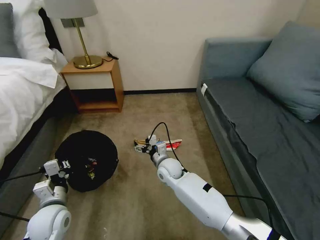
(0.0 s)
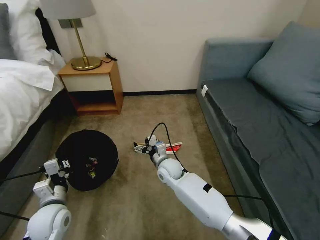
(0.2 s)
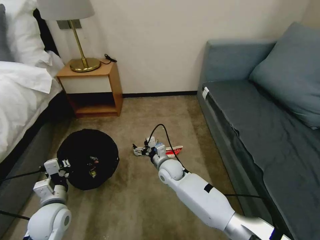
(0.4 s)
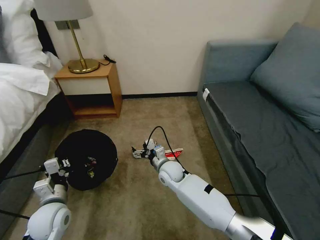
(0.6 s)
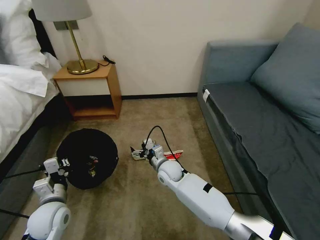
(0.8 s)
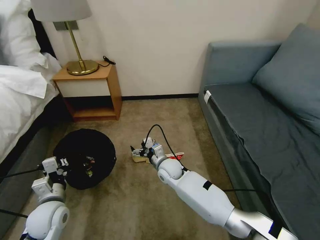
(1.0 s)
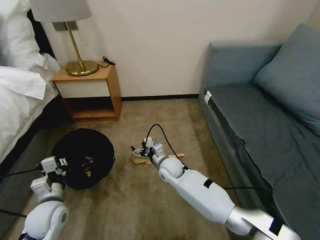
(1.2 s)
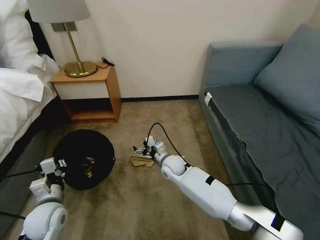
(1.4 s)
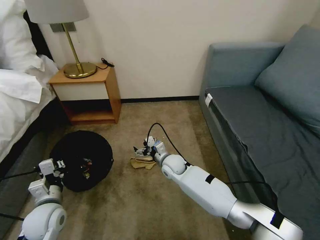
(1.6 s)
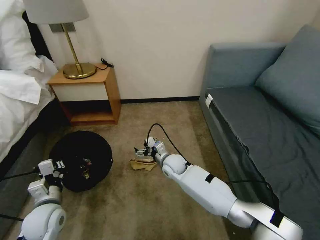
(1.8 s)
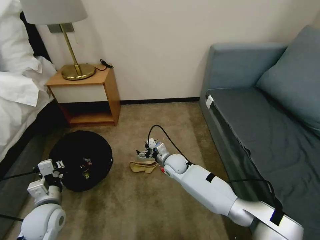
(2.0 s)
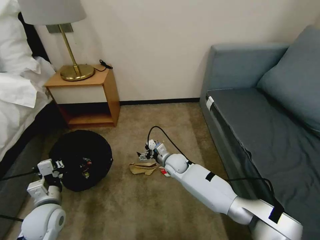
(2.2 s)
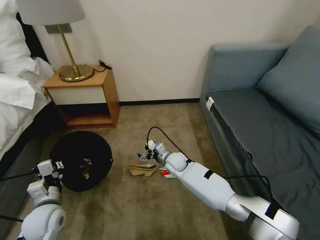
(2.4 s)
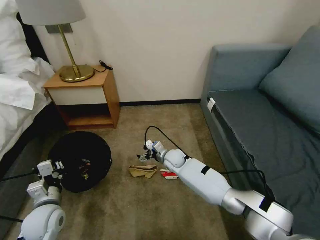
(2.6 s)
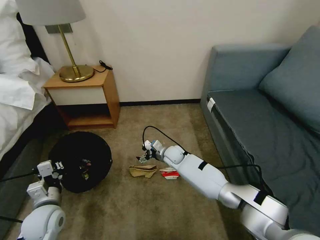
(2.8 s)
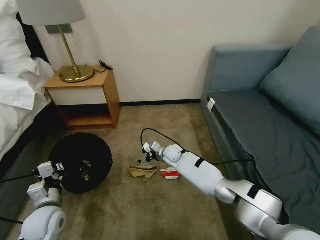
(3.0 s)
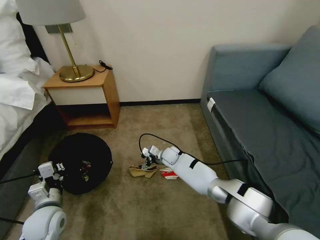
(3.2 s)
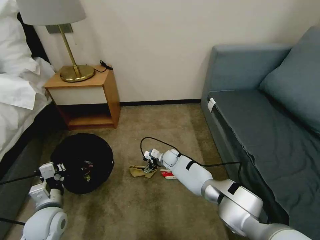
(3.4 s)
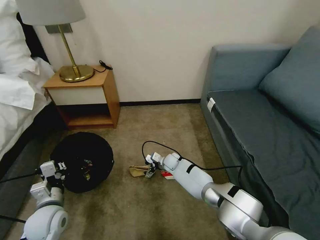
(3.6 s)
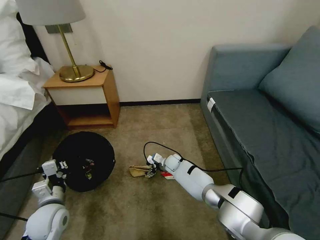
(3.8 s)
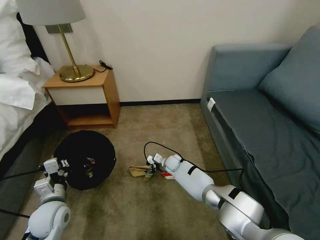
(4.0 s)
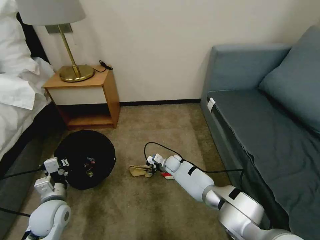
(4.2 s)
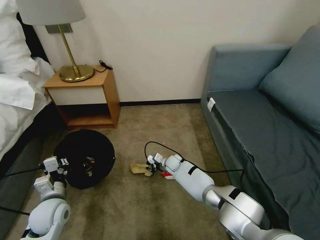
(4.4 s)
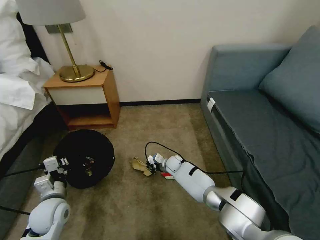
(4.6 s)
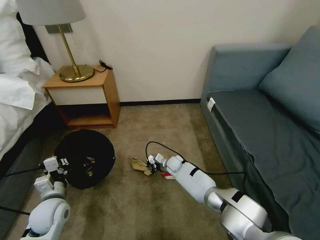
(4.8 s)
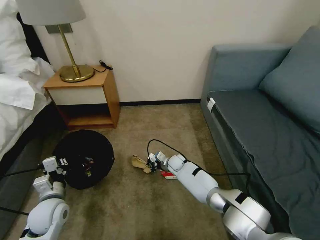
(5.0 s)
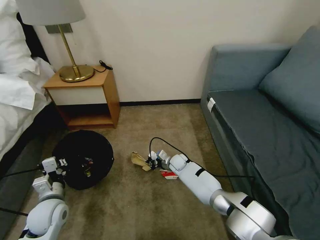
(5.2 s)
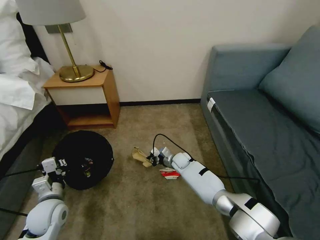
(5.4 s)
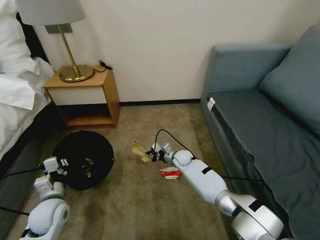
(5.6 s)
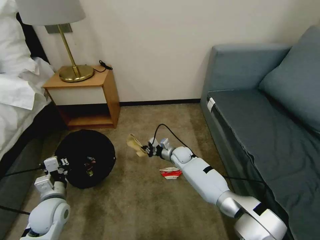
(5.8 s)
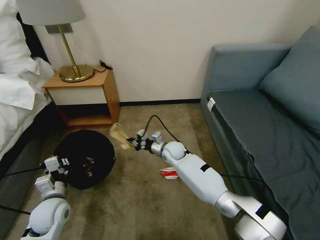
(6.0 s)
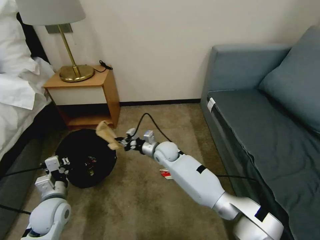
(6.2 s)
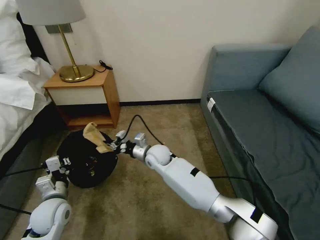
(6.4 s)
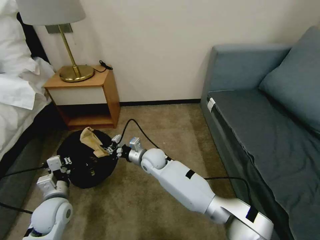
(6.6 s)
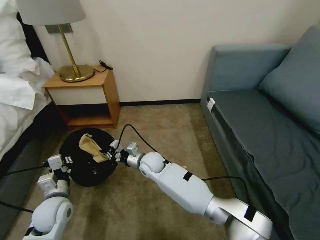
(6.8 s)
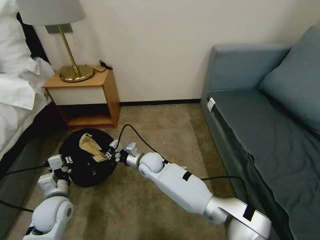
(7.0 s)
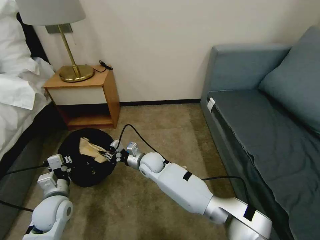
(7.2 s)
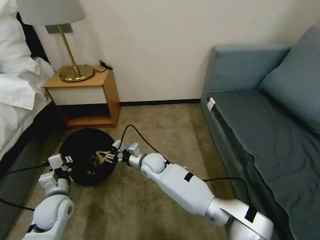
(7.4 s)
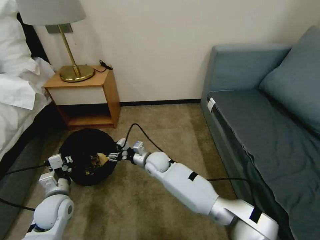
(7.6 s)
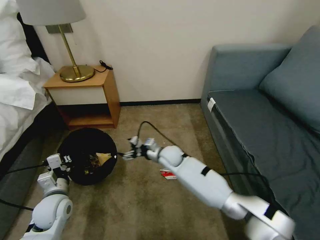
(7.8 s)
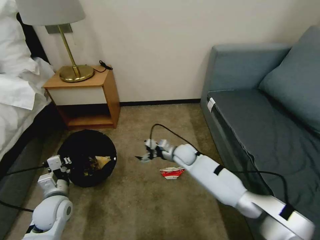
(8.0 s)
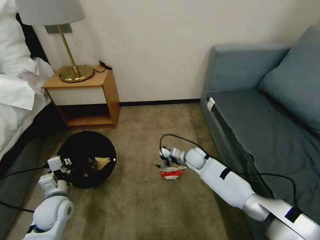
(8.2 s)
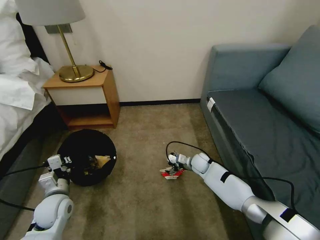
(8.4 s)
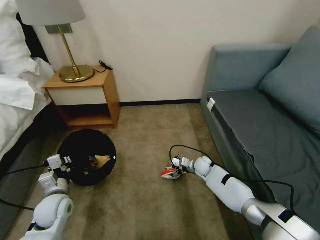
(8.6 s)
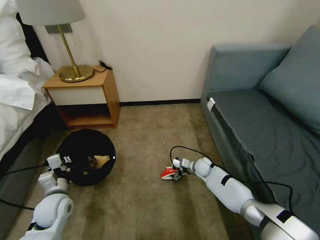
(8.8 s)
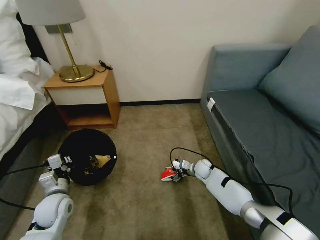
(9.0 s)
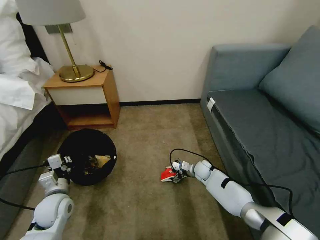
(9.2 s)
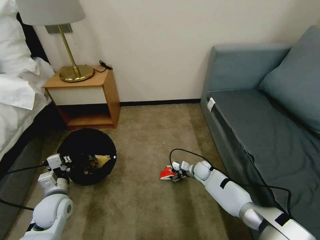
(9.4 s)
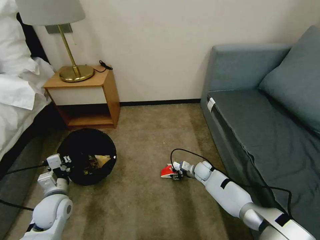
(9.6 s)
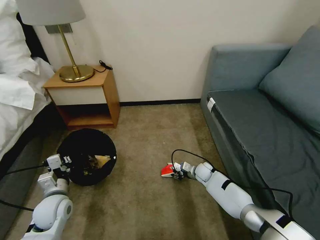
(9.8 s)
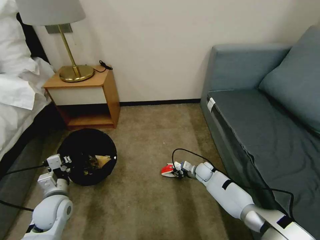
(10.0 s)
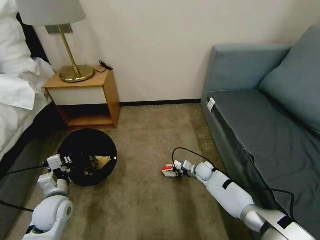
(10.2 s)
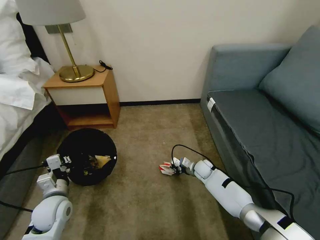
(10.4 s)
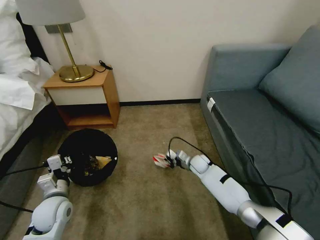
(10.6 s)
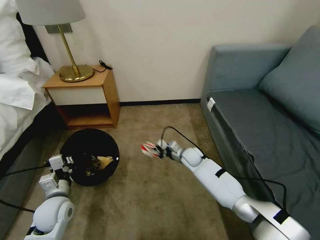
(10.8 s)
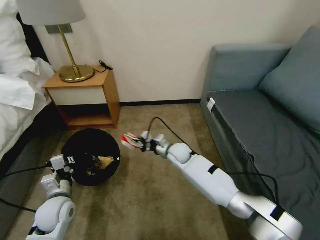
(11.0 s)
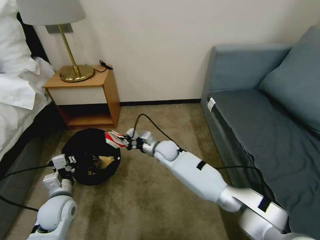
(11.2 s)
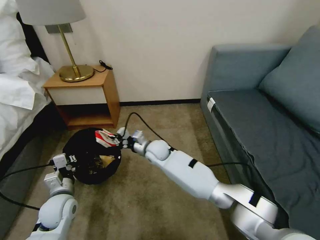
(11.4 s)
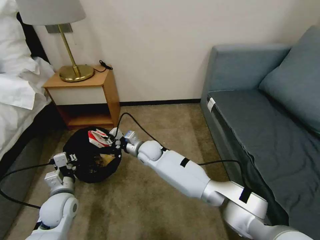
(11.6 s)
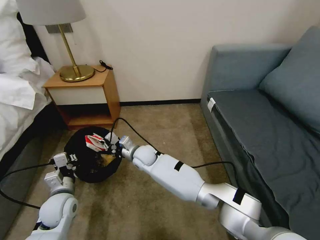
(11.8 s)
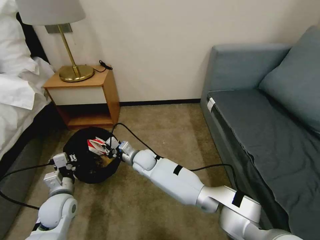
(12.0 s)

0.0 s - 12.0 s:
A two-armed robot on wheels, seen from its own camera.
Task of the whole recording: Pick up the trash bin, then pick up the garbage on the floor and place it into the trash bin.
1.6 s - 3.0 s: The right gripper shifts approximately 5 cm forward.
3.0 s - 4.4 s: The right gripper shifts about 10 cm downward, and closes its fingers.
4.4 s - 6.0 s: The right gripper moves upward, approximately 10 cm.
6.0 s - 7.6 s: The right gripper travels to the left and backward by approximately 10 cm, and opens its fingers.
7.6 s - 9.0 s: The right gripper is displaced to the right and downward by about 25 cm.
9.0 s - 10.4 s: The right gripper closes.
10.4 s - 12.0 s: The right gripper heads to the left and upward, covering about 30 cm.

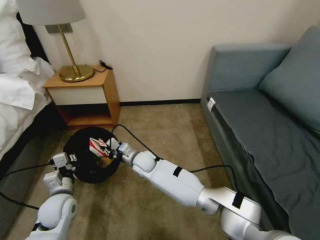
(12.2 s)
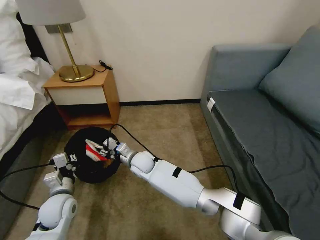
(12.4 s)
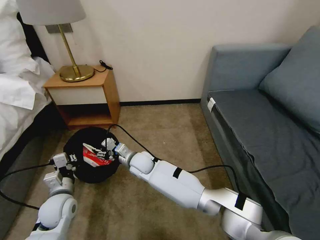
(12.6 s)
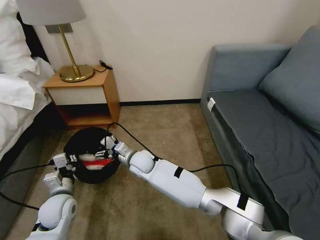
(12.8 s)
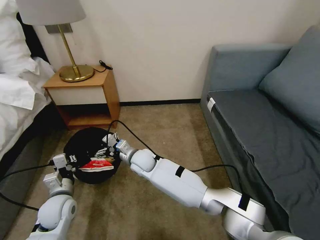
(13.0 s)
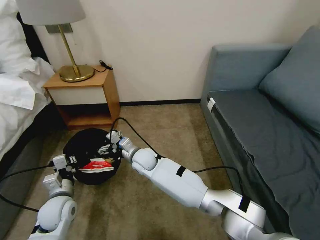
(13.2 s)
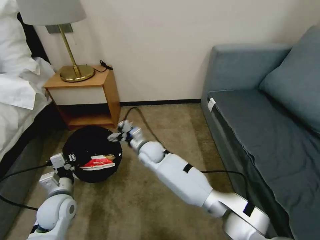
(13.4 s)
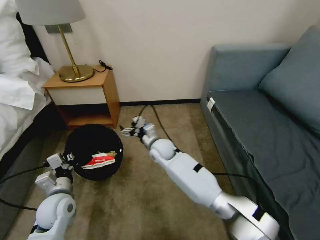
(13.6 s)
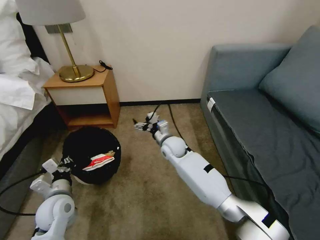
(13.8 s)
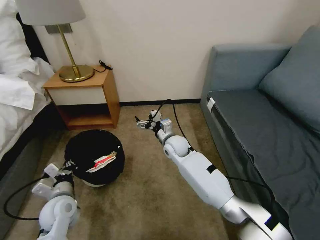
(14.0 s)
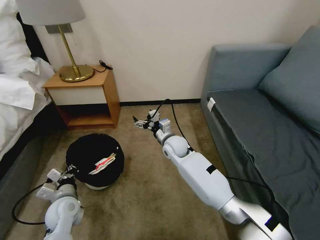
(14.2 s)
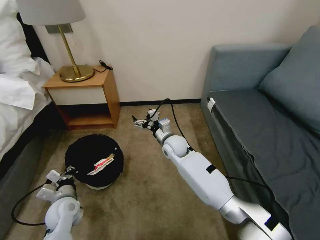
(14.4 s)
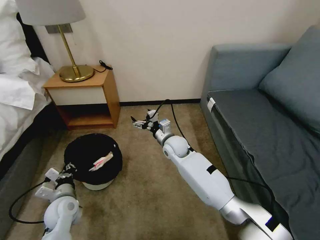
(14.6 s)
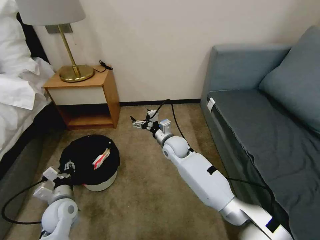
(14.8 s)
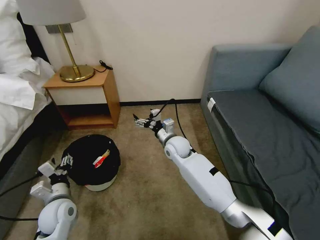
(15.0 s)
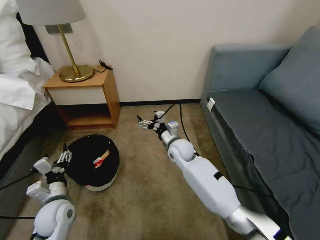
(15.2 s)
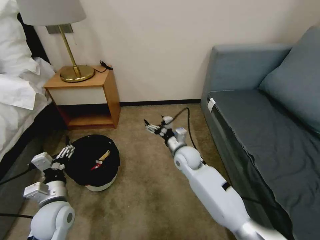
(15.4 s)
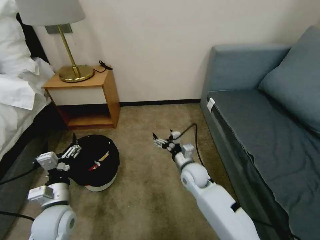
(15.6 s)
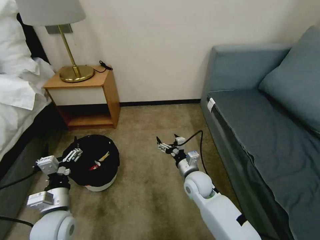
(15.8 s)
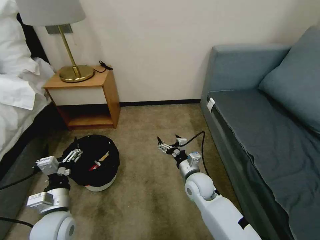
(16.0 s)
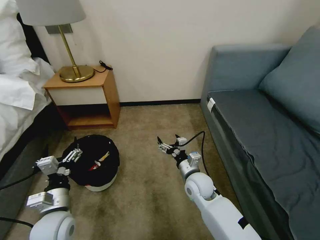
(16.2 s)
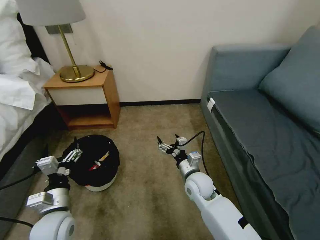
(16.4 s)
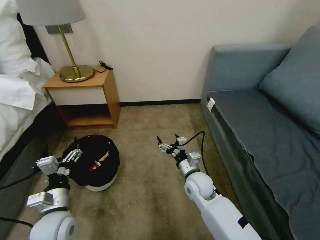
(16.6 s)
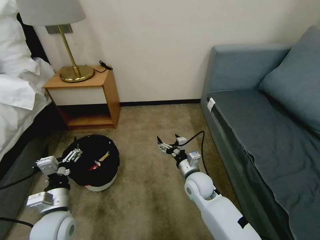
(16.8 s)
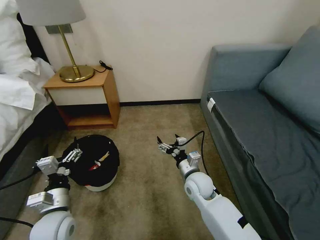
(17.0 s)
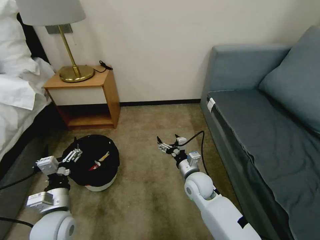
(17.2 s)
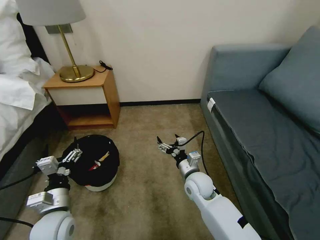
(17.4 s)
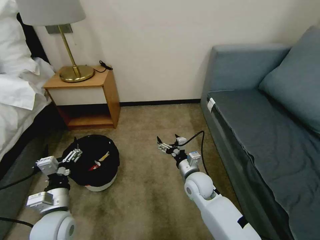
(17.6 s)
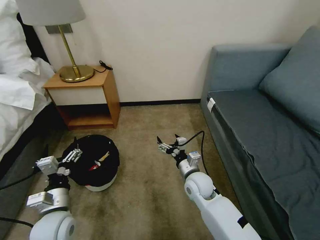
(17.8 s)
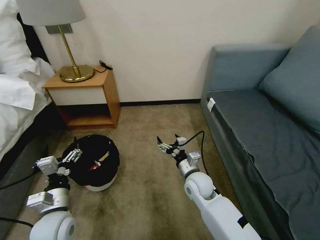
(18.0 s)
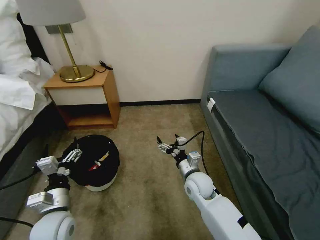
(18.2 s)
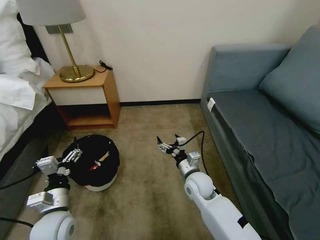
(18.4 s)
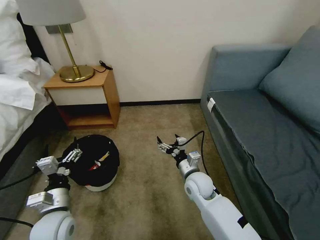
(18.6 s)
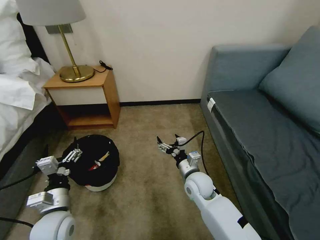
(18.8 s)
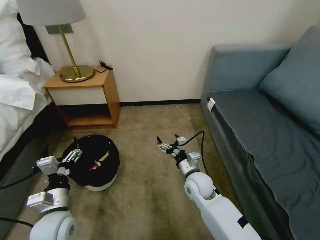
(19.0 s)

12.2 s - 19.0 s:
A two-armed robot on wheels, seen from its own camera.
Task of the whole recording: Pick up the trash bin, then pick up the garbage on the floor and place it into the trash bin.
12.2 s - 13.6 s: The right gripper heads to the right, covering approximately 5 cm, and opens.
13.6 s - 15.0 s: The left gripper opens its fingers. Meanwhile the right gripper is displaced to the right by approximately 5 cm.
15.0 s - 16.2 s: The right gripper is displaced backward, to the right and downward by roughly 15 cm; the left gripper ends up roughly 5 cm from where it was.
16.2 s - 19.0 s: The two grippers keep their place.

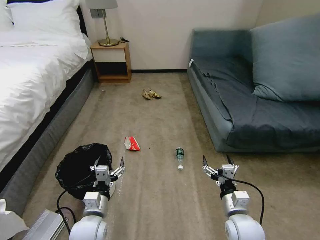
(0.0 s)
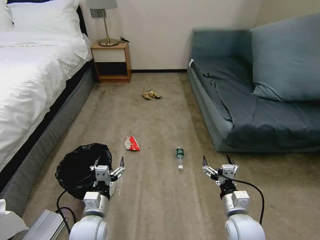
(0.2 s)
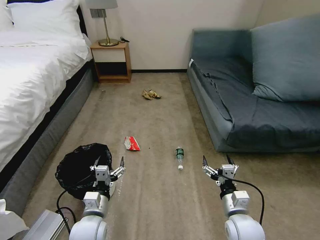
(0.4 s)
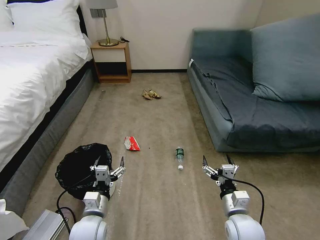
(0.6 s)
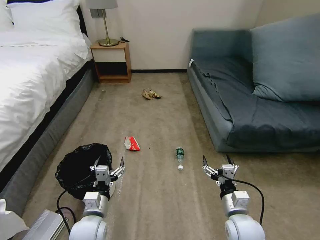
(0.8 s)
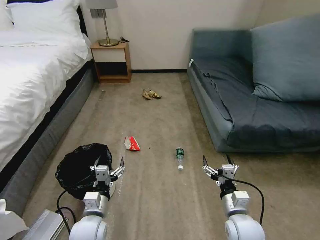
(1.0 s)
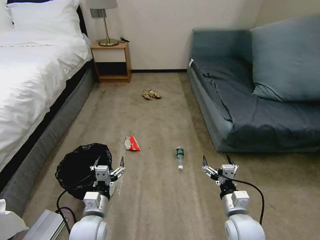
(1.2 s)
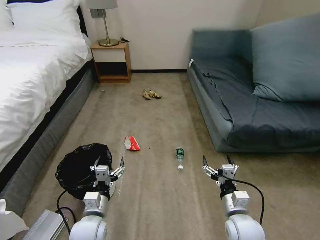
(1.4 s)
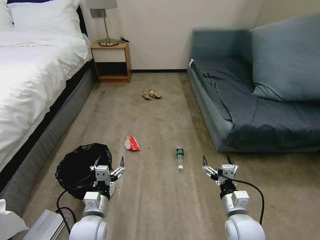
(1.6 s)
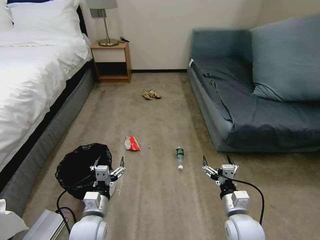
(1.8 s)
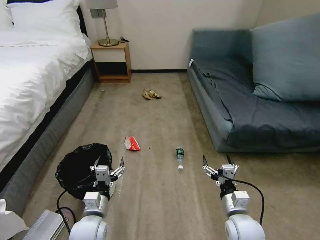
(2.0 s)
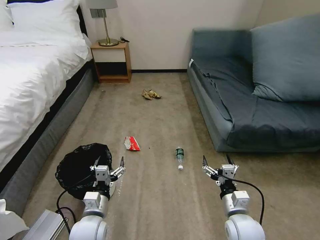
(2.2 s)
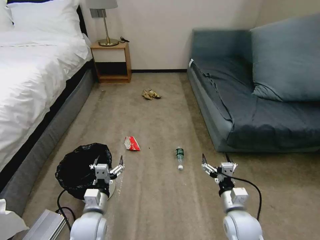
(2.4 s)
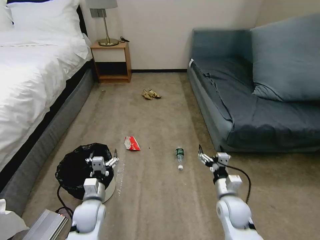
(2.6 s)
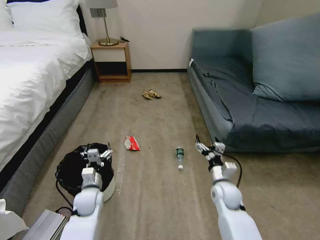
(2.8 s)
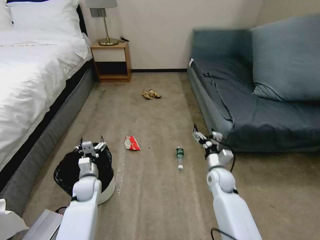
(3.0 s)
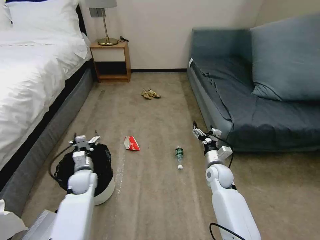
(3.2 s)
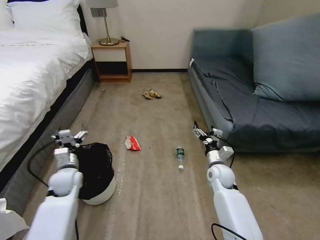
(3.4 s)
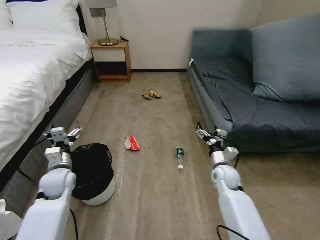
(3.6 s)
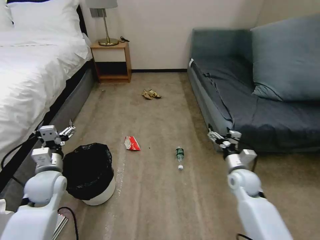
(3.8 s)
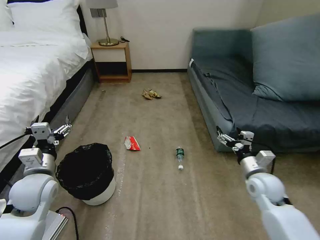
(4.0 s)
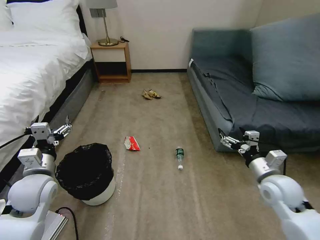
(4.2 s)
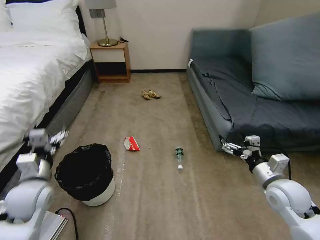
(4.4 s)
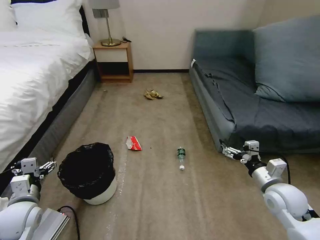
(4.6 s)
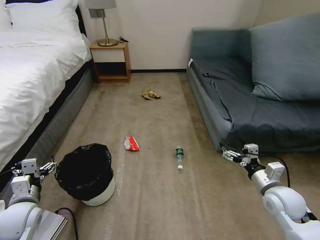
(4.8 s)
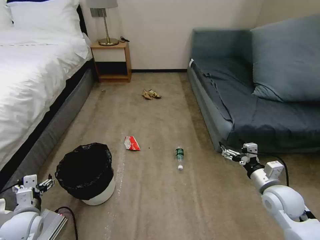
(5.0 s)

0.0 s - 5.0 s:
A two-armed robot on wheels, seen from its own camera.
Task of the whole recording: Pick up the trash bin, then pick up the garbage on the floor and place it into the trash bin.
1.6 s - 3.4 s: The left gripper heads forward and to the left, covering about 20 cm, while the right gripper goes roughly 20 cm forward.
3.4 s - 5.0 s: The right gripper goes some 20 cm to the right, backward and upward, while the left gripper goes approximately 15 cm backward and to the left.
